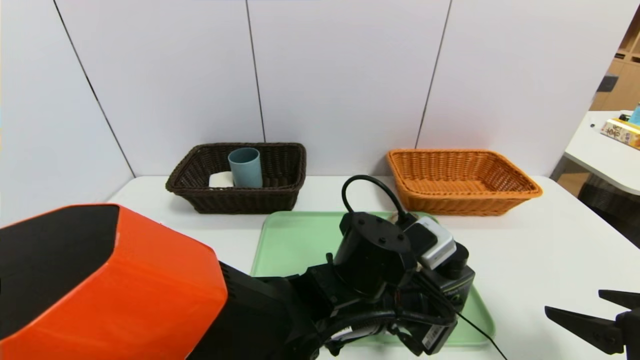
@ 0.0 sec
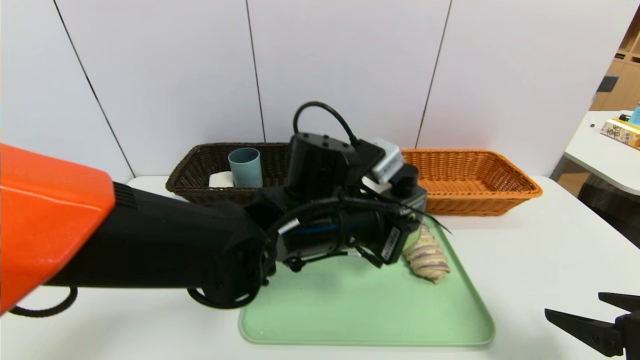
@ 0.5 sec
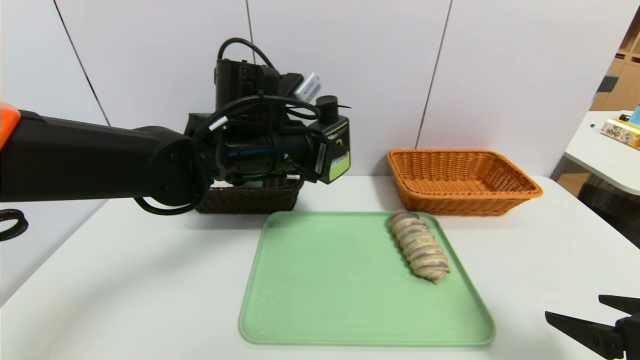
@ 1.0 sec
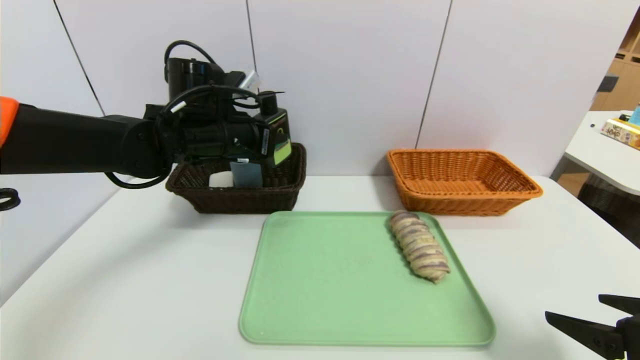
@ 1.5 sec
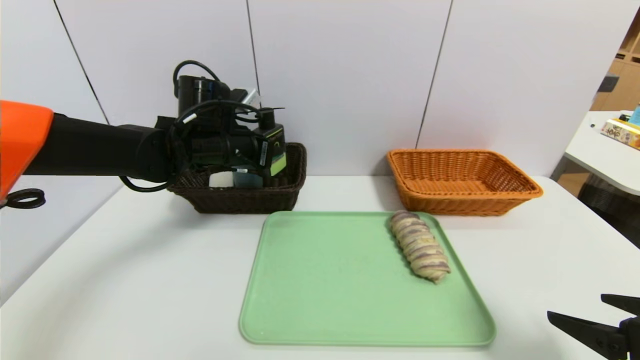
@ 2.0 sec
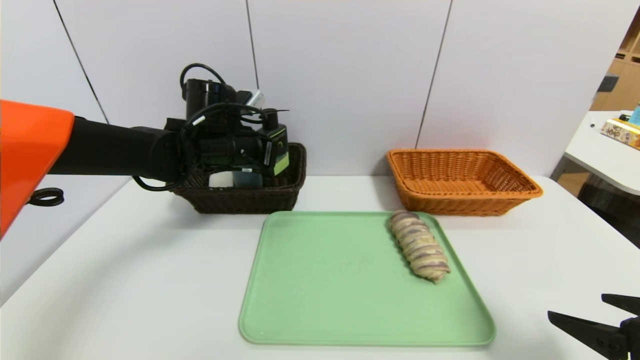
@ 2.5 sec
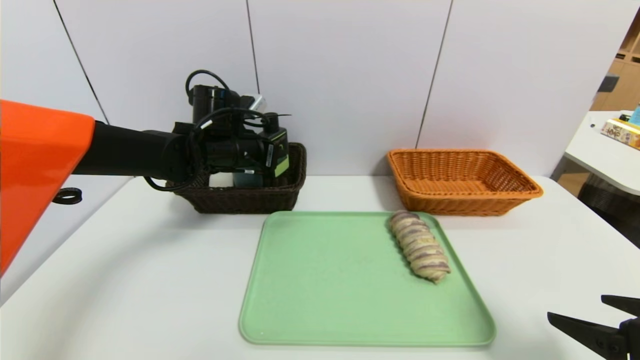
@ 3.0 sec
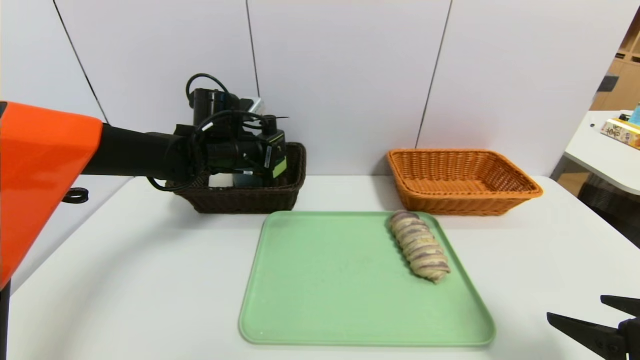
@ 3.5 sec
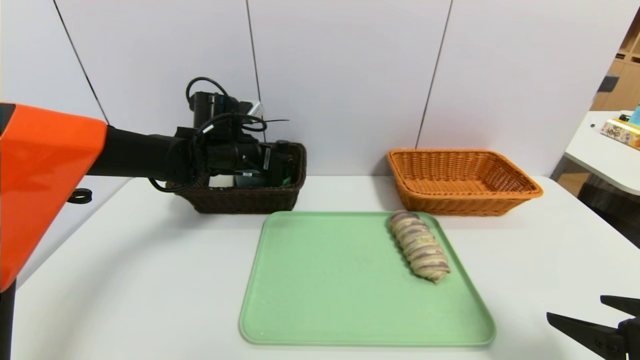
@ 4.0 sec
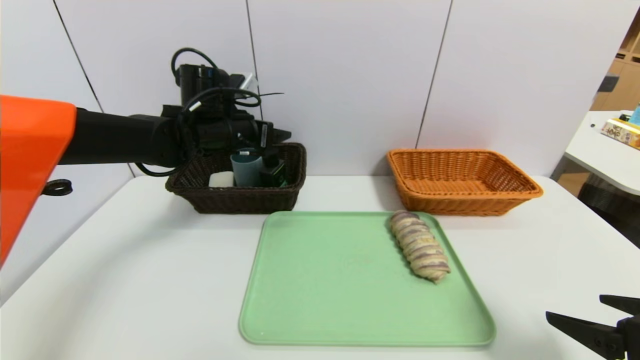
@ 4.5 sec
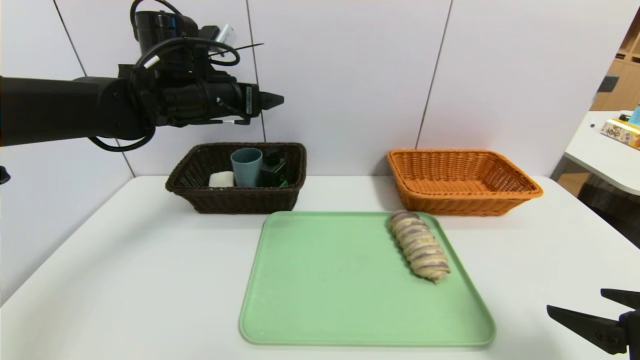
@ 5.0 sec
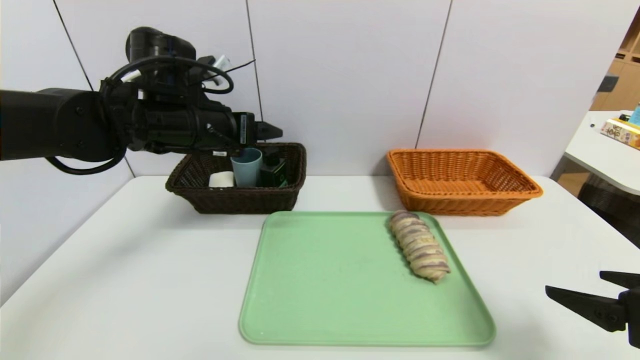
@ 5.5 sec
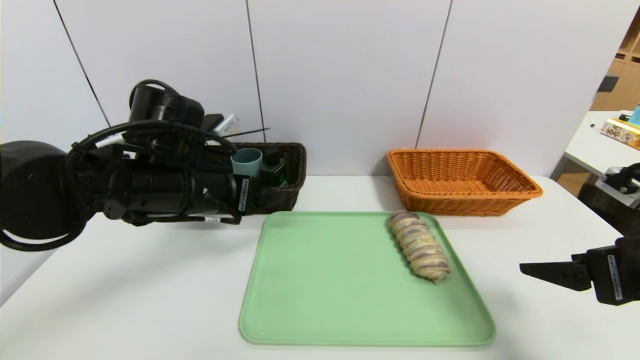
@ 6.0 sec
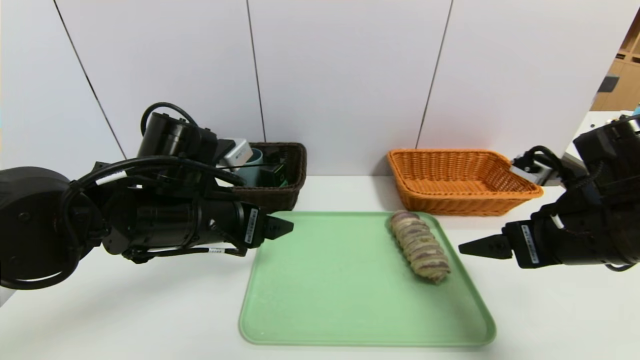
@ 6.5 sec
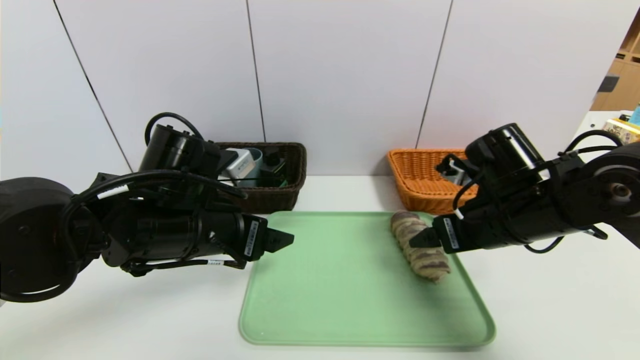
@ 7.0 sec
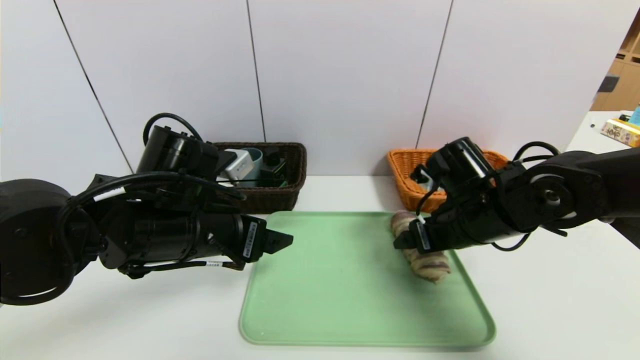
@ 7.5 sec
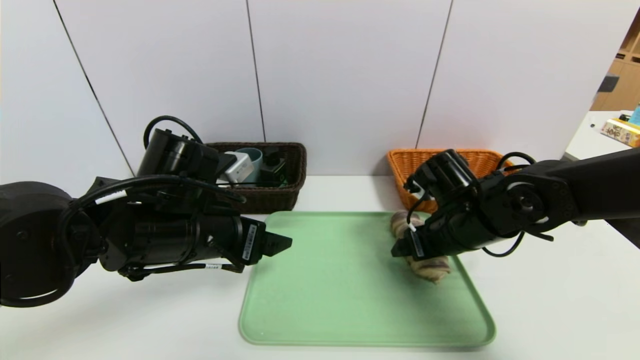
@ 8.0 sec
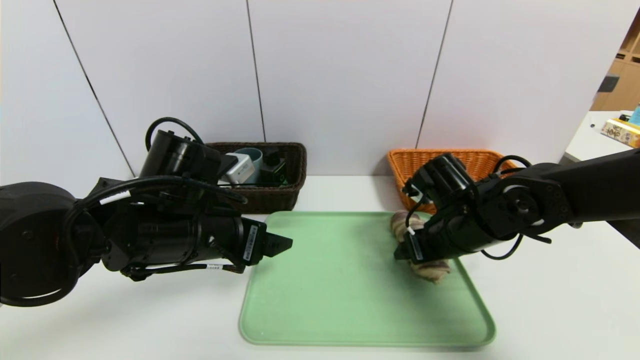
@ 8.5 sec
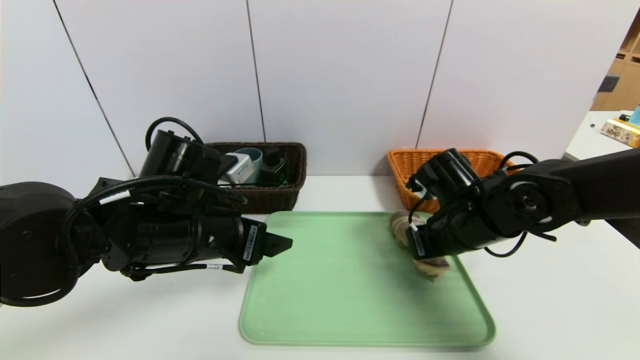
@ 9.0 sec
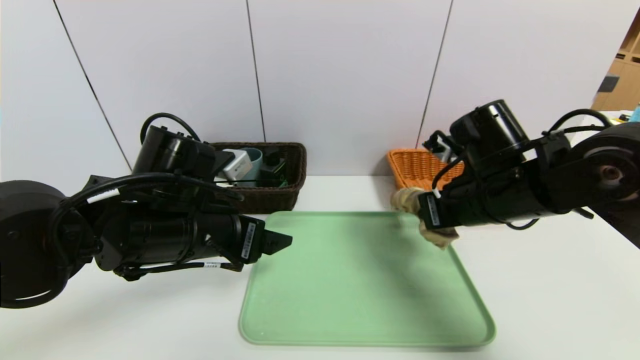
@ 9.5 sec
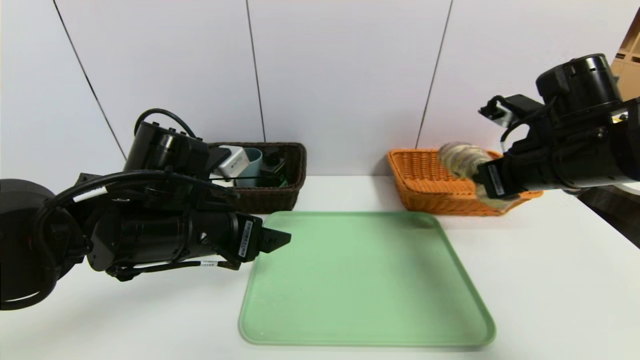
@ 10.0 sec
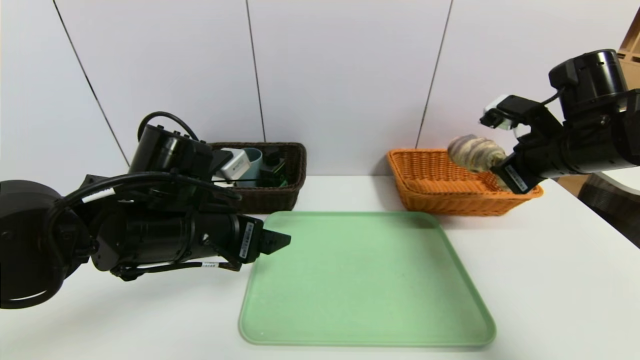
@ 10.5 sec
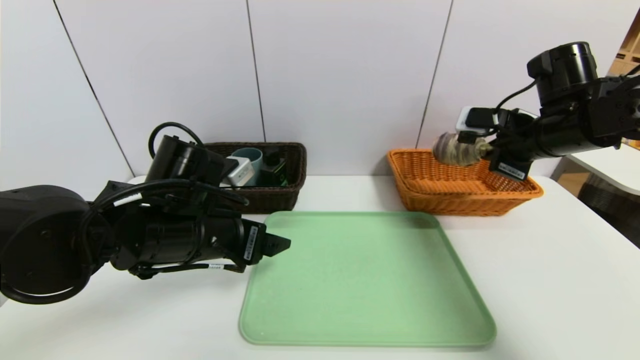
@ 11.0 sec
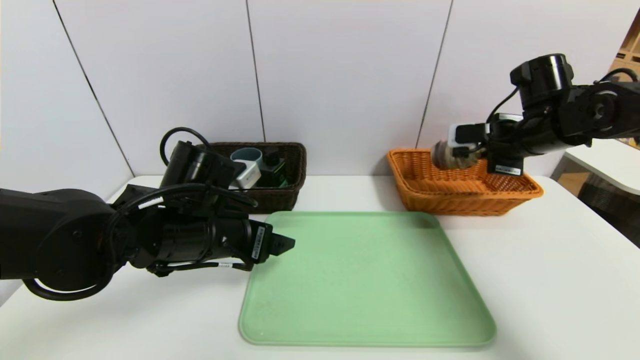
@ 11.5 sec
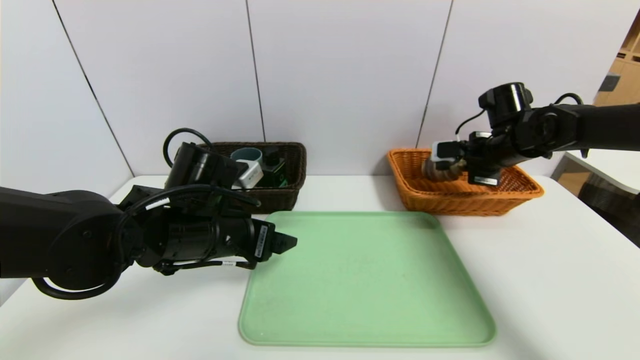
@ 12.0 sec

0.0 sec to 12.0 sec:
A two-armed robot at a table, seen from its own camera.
Task of the whole recording: place the food in the right basket with the right gripper, and place the non food items in the left basket with the left gripper.
Step, 0.0 sec to 4.0 sec: Grasp the hard cleanser and put it in the left basket.
0.0 sec to 2.0 sec: The left gripper travels to the left, forward and upward by approximately 30 cm.
2.0 sec to 4.0 sec: The left gripper opens its fingers.
4.0 sec to 6.0 sec: The right gripper travels forward by approximately 5 cm, while the left gripper is displaced backward by approximately 15 cm, and opens up.
6.0 sec to 8.0 sec: The right gripper shifts some 20 cm forward, to the left and downward.
8.0 sec to 10.0 sec: The right gripper moves upward and to the right, some 15 cm, and closes up.
10.0 sec to 12.0 sec: The right gripper heads forward, covering some 15 cm.

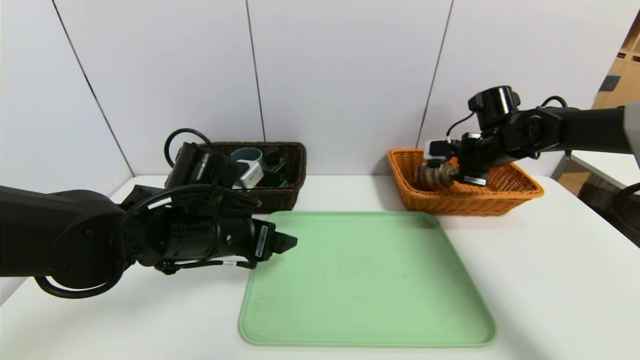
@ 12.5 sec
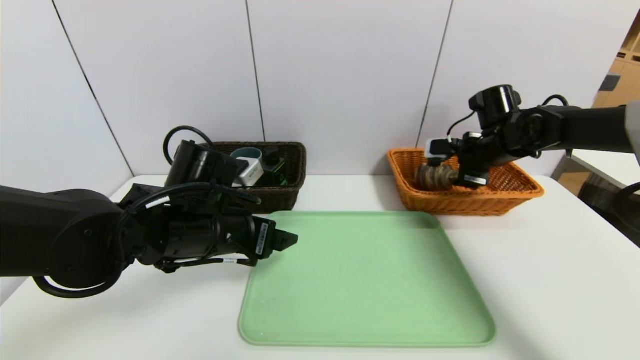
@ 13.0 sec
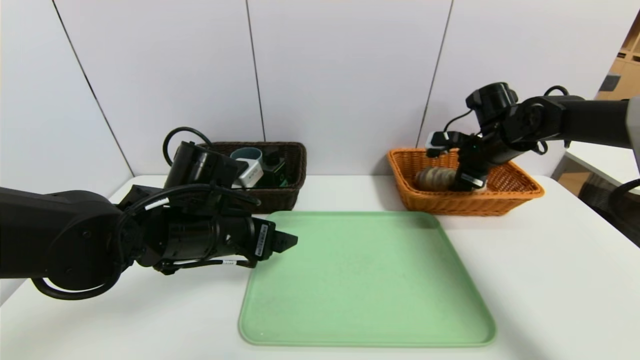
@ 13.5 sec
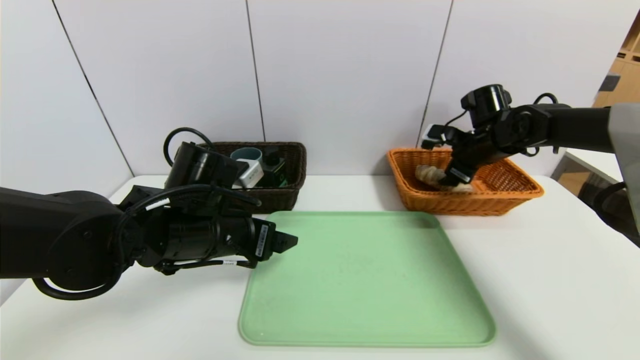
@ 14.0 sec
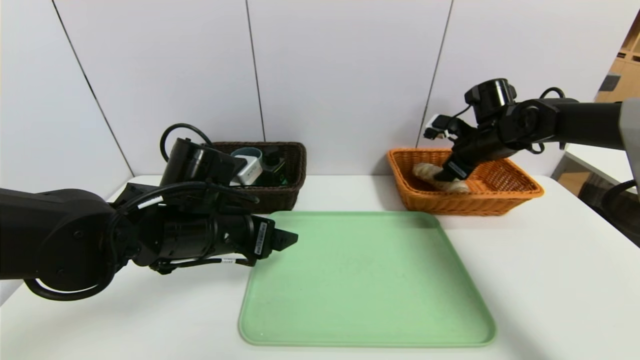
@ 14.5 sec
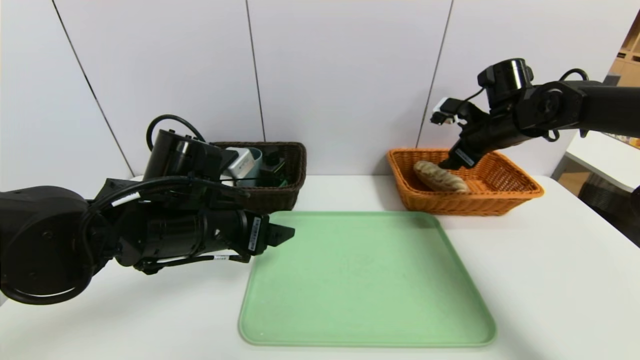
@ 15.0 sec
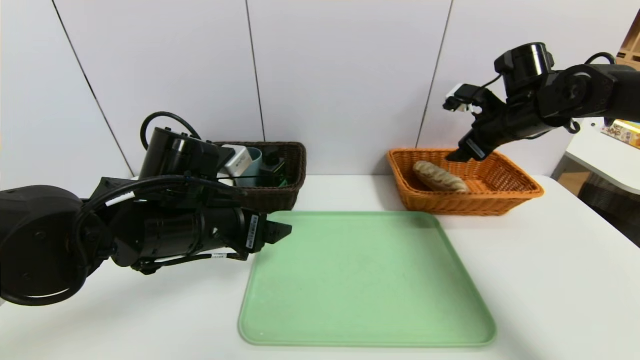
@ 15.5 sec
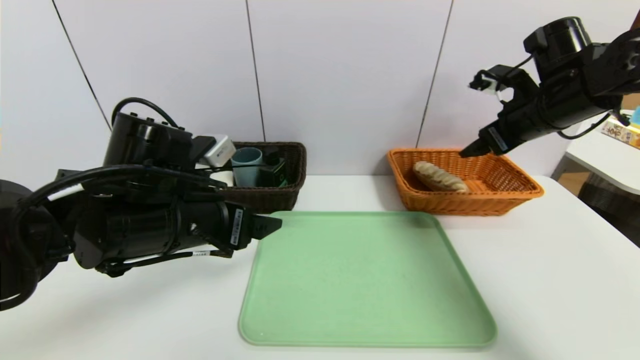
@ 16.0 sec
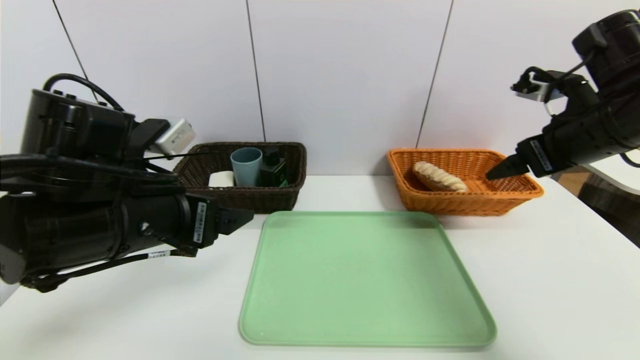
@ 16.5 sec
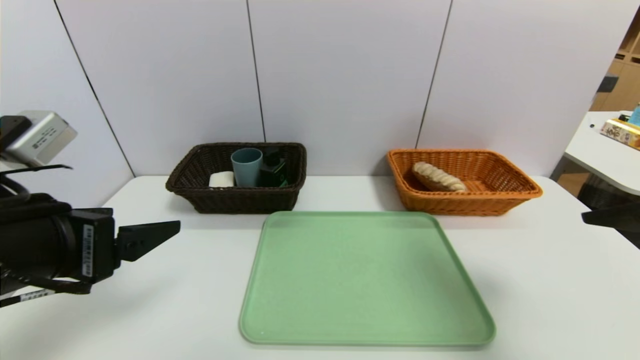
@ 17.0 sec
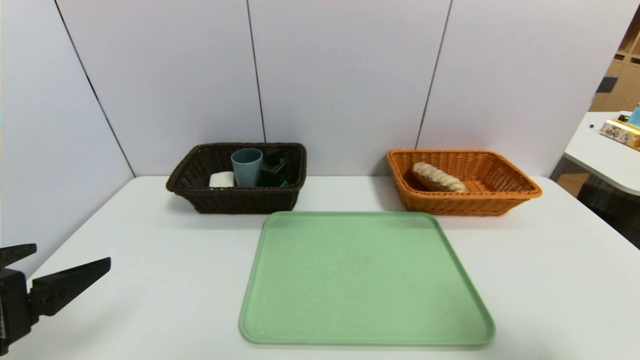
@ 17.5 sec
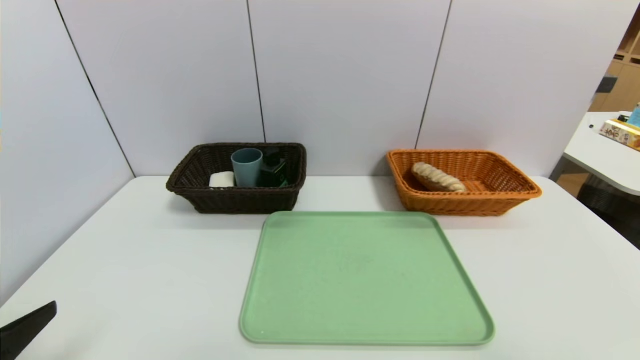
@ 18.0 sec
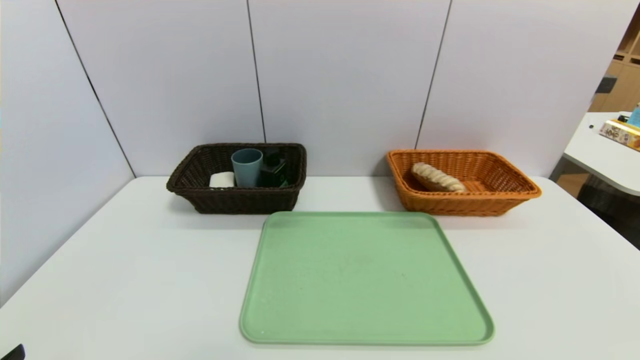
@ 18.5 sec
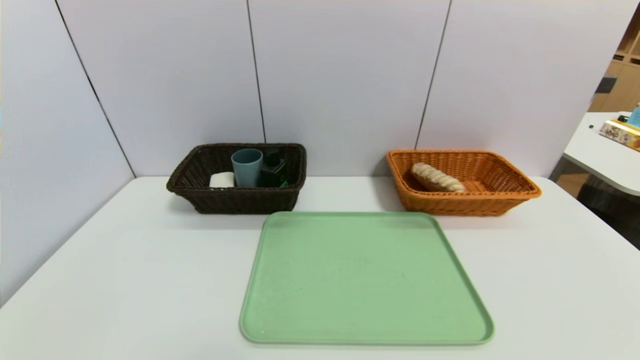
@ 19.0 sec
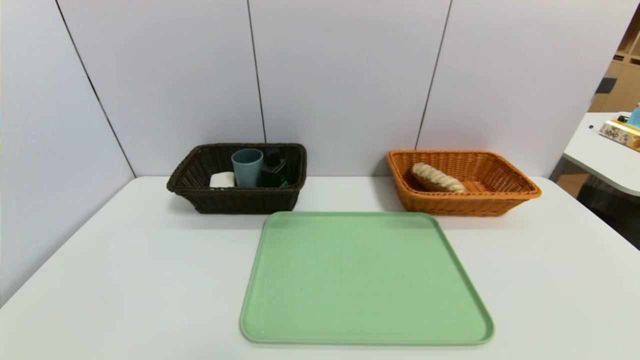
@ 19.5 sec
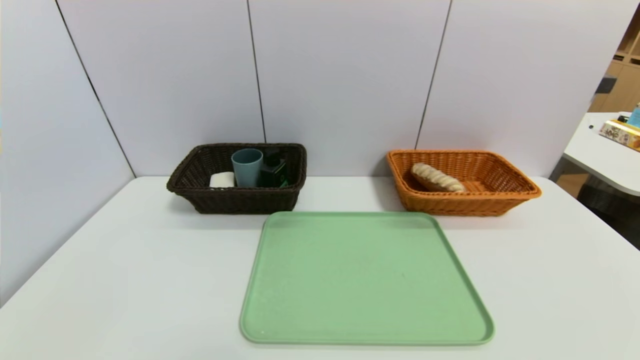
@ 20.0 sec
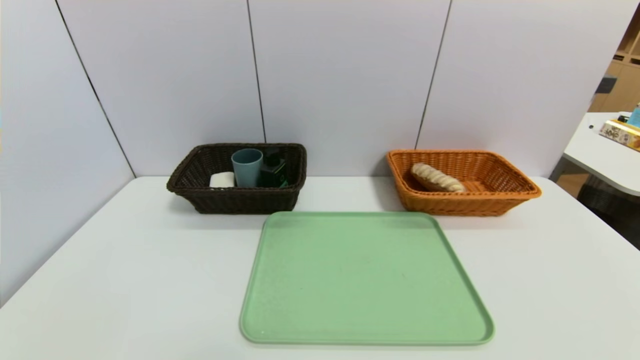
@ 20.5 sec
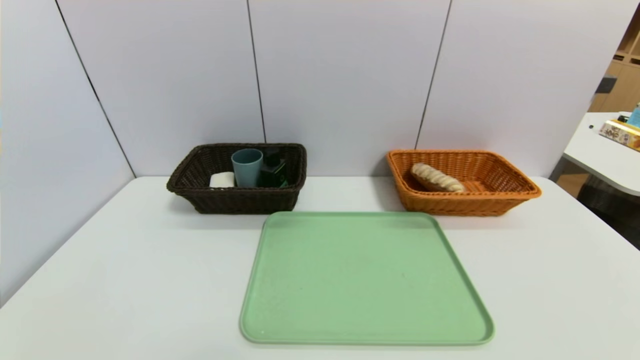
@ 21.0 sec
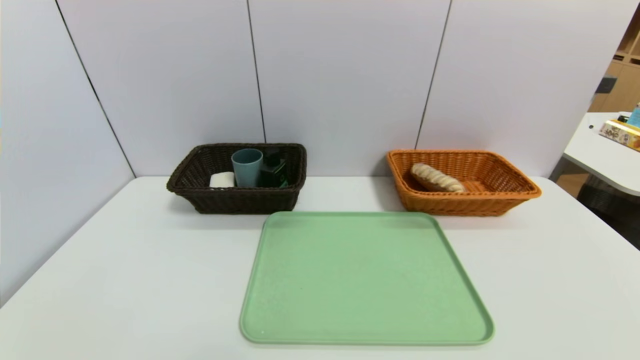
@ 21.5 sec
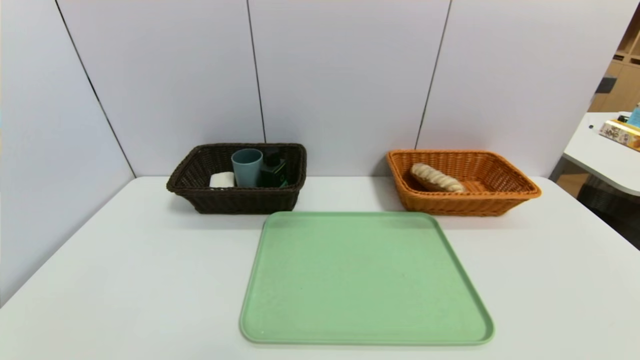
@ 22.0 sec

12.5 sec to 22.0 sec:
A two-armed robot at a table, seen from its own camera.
Task of the whole recording: place the food in the right basket with the right gripper, and place the non food items in the left basket with the left gripper.
Step, 12.5 sec to 15.0 sec: Grasp the long bread and put it in the right basket.
12.5 sec to 14.5 sec: The right gripper opens up.
14.5 sec to 16.5 sec: The left gripper moves upward and backward, roughly 10 cm, while the right gripper is displaced backward and upward by about 20 cm.
16.5 sec to 18.0 sec: The left gripper heads backward and to the left, covering approximately 20 cm. Meanwhile the right gripper heads backward, covering roughly 30 cm.
18.0 sec to 20.0 sec: The left gripper is displaced downward by some 10 cm.
